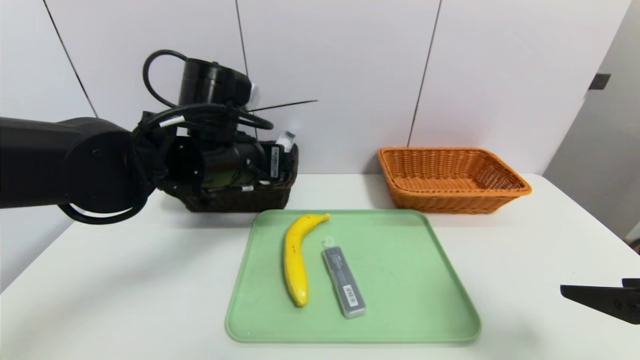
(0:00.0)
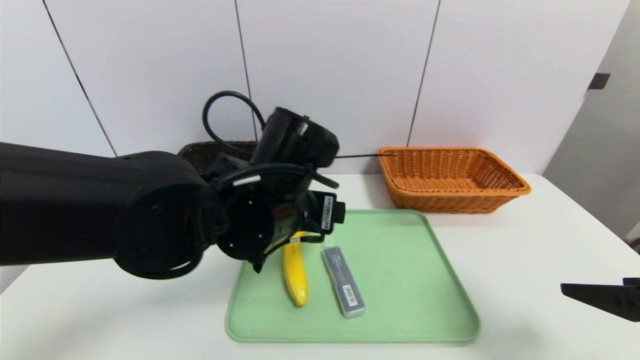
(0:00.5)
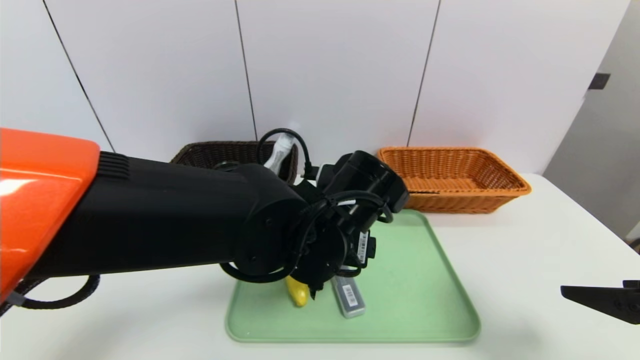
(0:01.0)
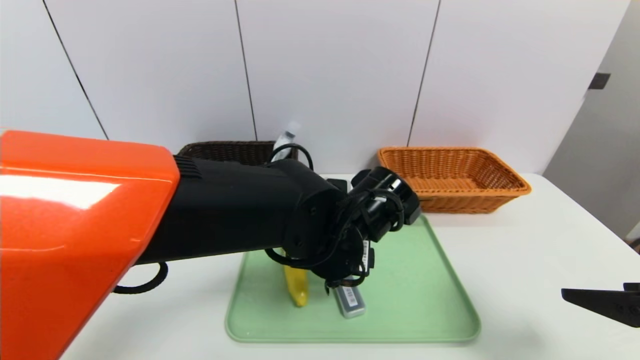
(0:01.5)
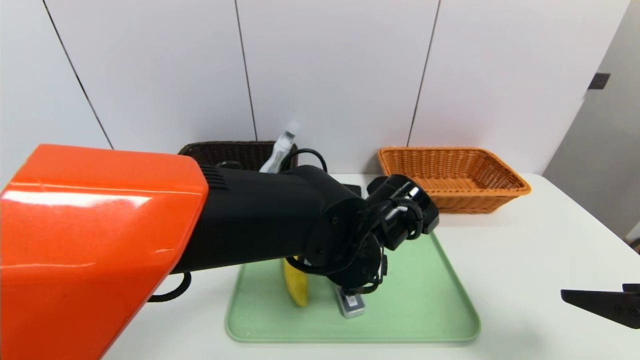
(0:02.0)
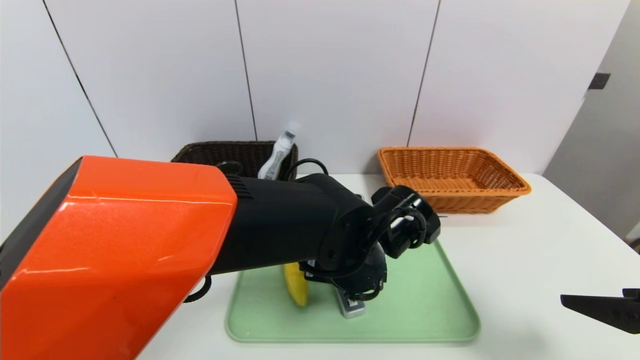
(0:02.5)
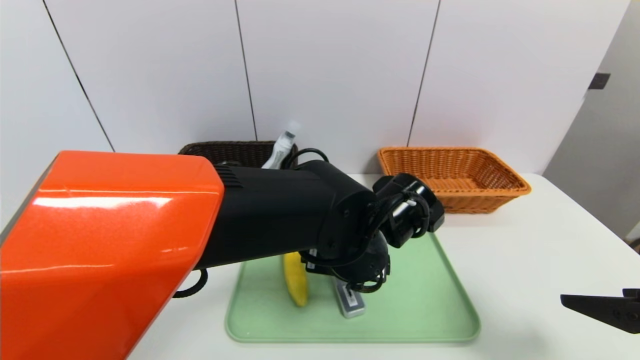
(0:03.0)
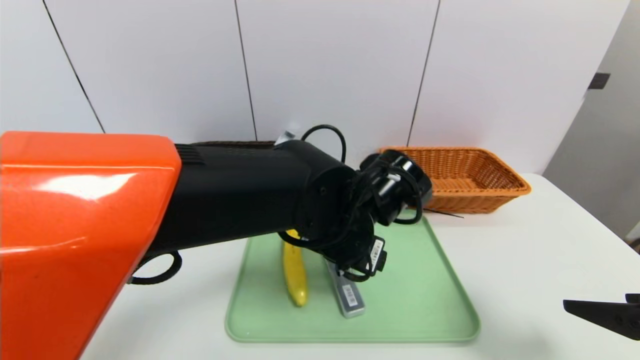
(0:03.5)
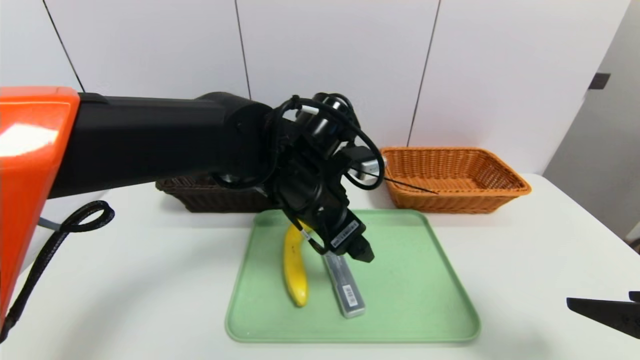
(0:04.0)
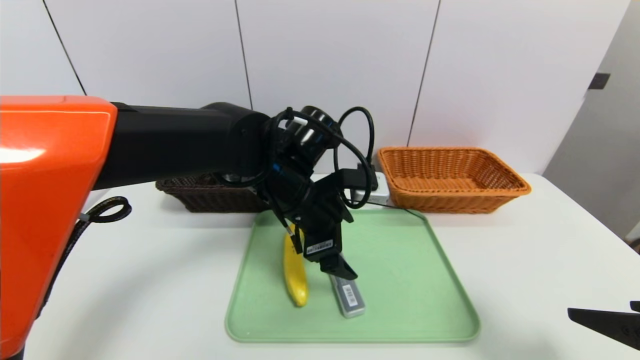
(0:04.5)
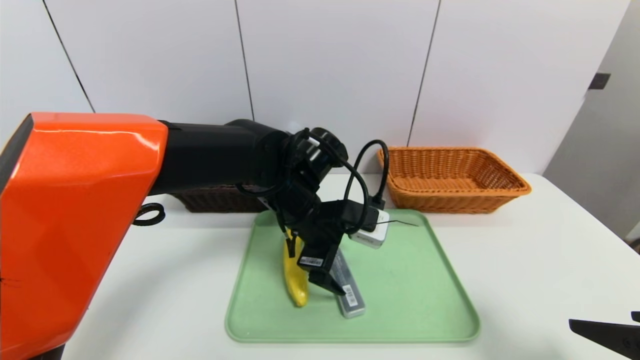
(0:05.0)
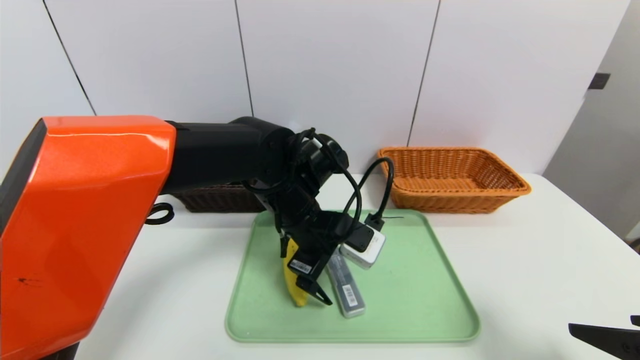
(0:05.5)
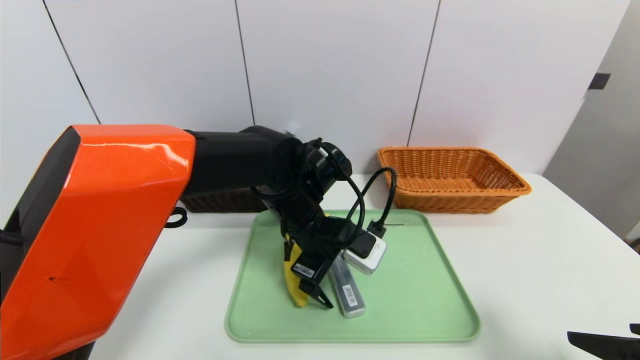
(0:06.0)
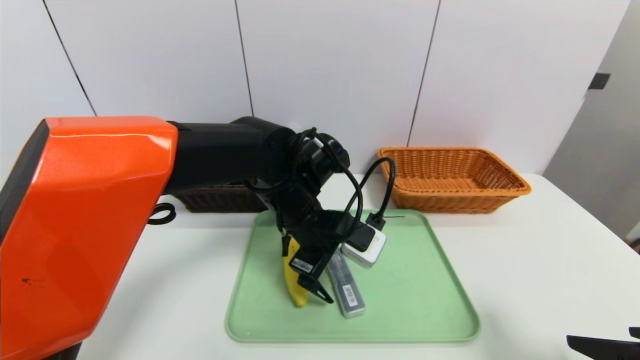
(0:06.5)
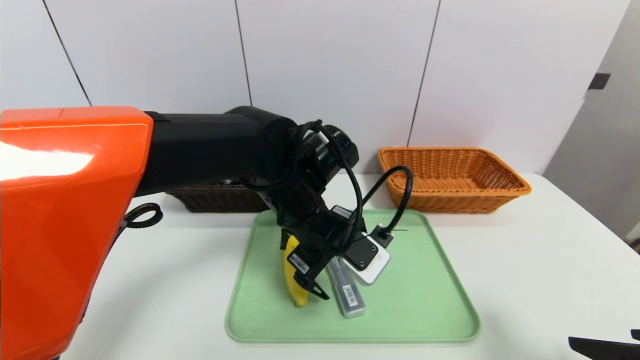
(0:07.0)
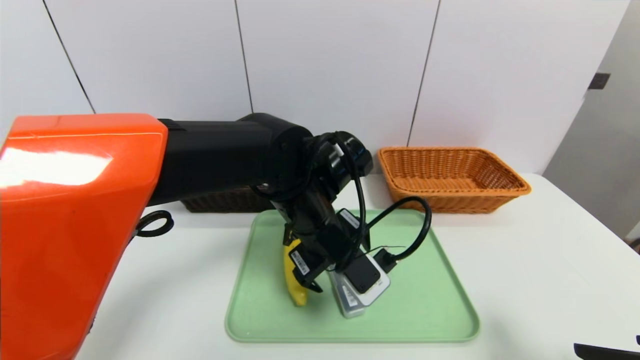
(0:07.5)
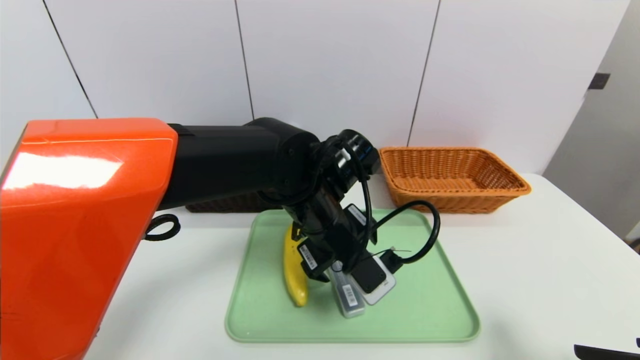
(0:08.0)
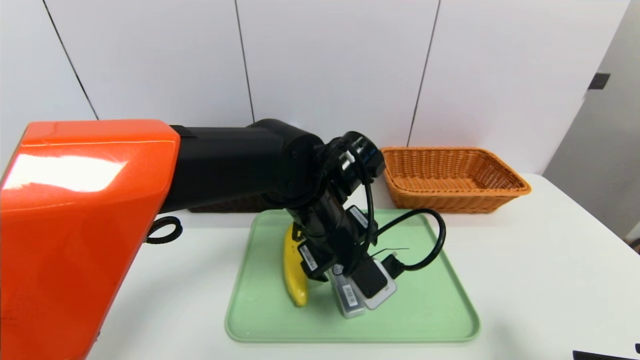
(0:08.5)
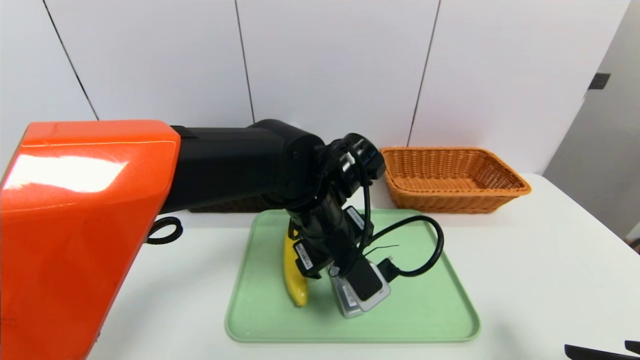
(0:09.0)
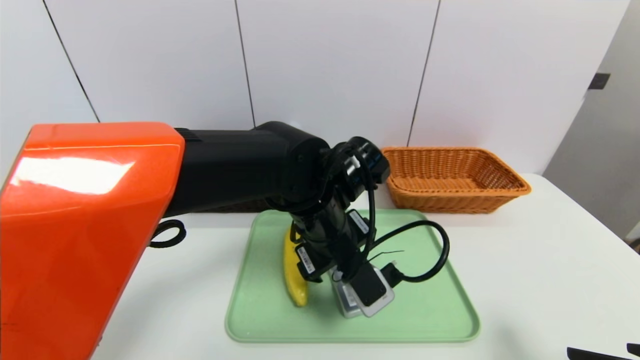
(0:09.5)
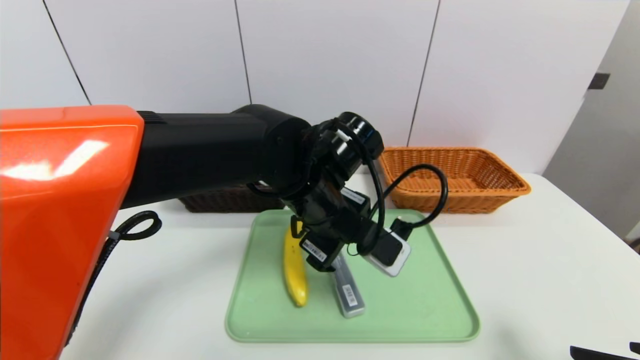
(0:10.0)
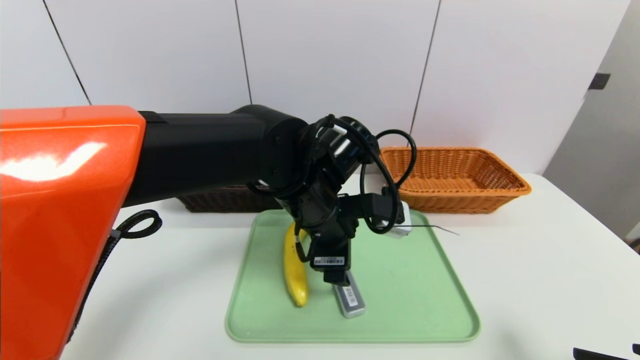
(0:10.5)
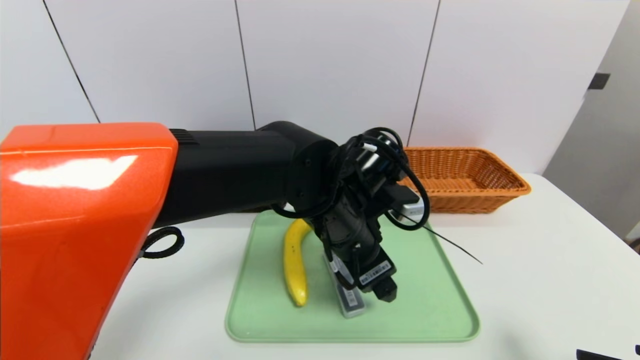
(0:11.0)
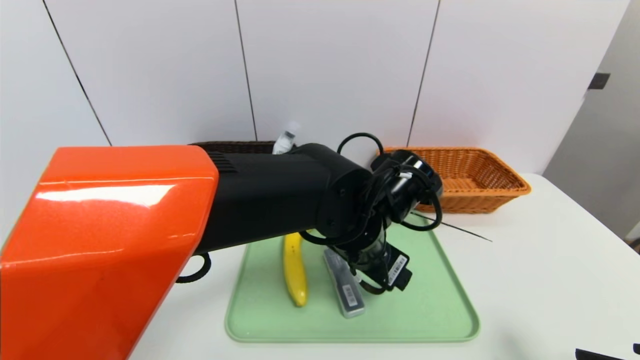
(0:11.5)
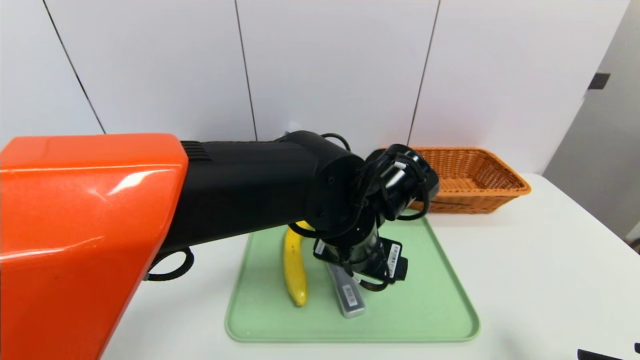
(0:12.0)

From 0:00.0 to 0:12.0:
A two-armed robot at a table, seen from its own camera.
Task of the whole recording: place the food in the right basket with the right gripper, and place the non food items in the left basket with the left gripper.
From 0:00.0 to 0:02.0: The left gripper is displaced to the right and downward by roughly 15 cm.
From 0:02.0 to 0:04.0: The left gripper shifts approximately 10 cm upward and to the left.
From 0:04.0 to 0:06.0: The left gripper travels downward by approximately 5 cm.
From 0:08.0 to 0:10.0: The grippers move only a little.
From 0:10.0 to 0:12.0: The left gripper shifts by some 5 cm.

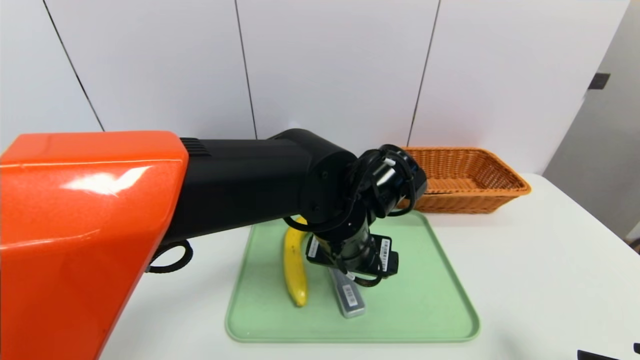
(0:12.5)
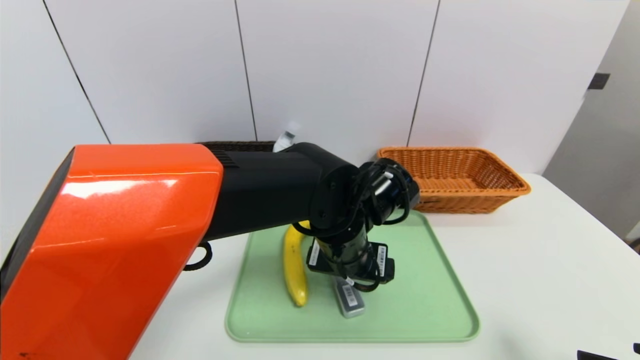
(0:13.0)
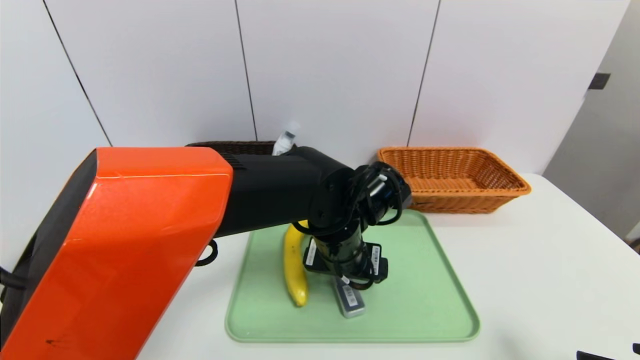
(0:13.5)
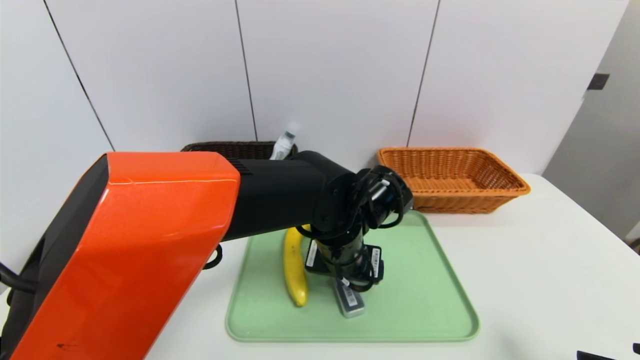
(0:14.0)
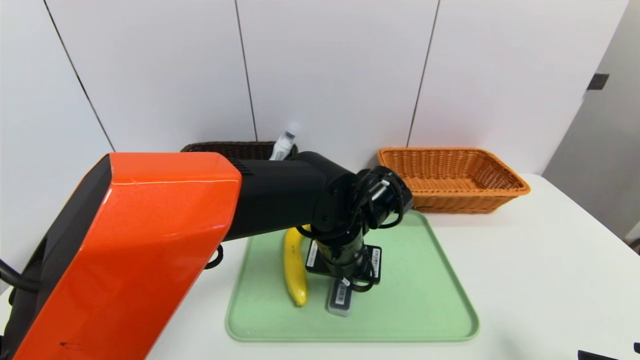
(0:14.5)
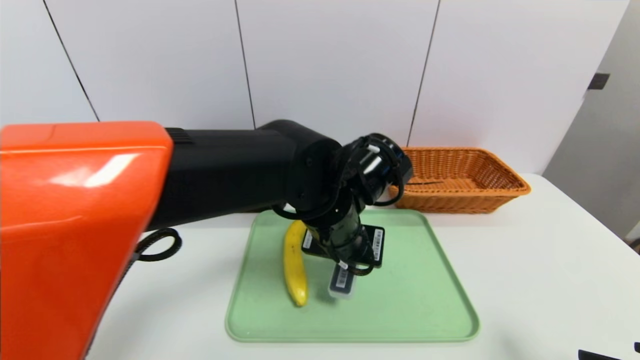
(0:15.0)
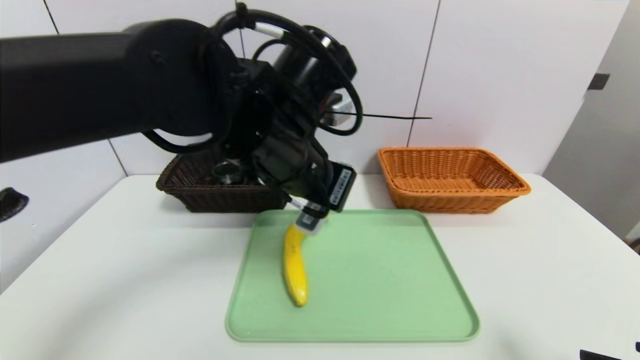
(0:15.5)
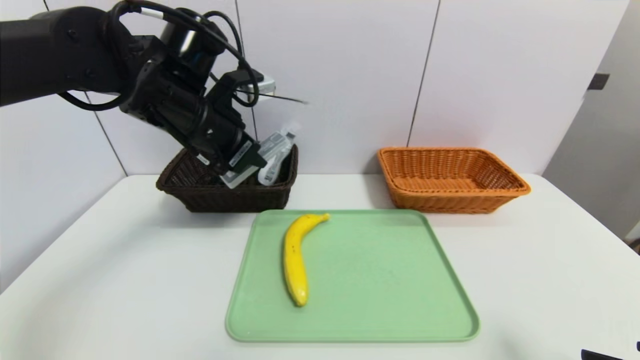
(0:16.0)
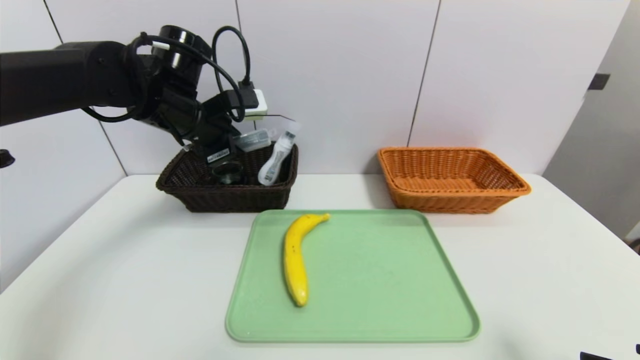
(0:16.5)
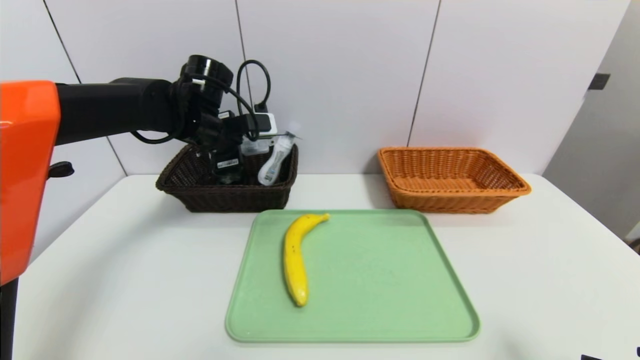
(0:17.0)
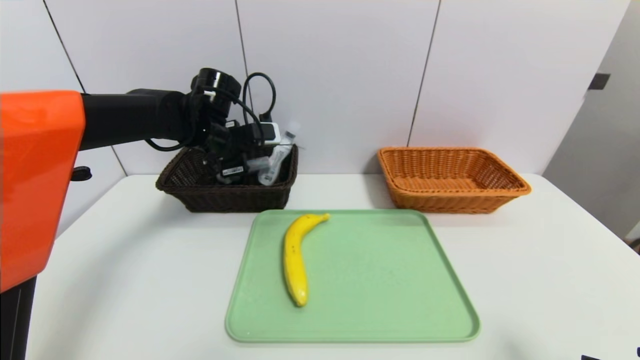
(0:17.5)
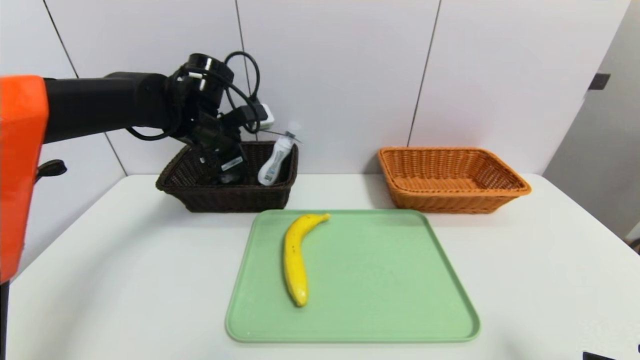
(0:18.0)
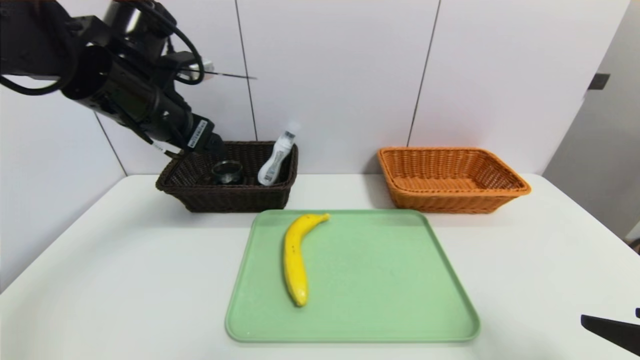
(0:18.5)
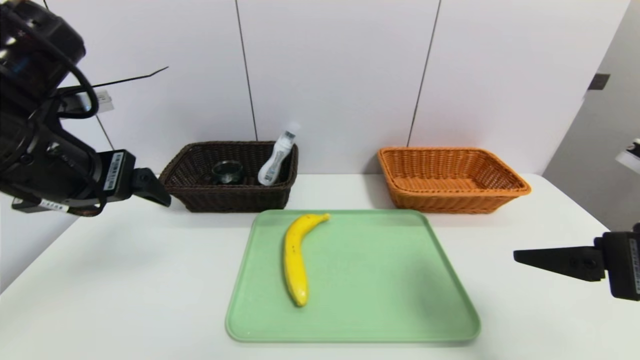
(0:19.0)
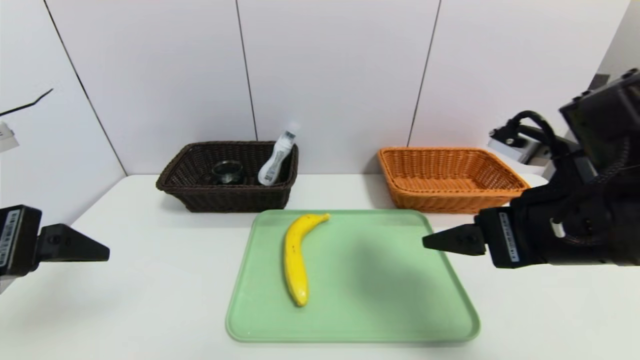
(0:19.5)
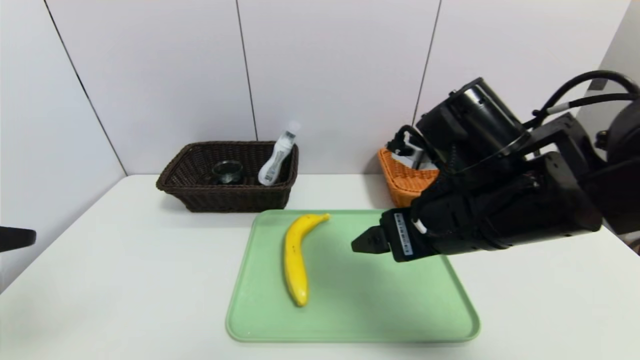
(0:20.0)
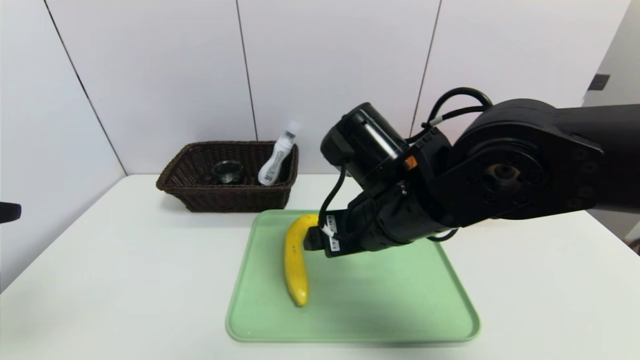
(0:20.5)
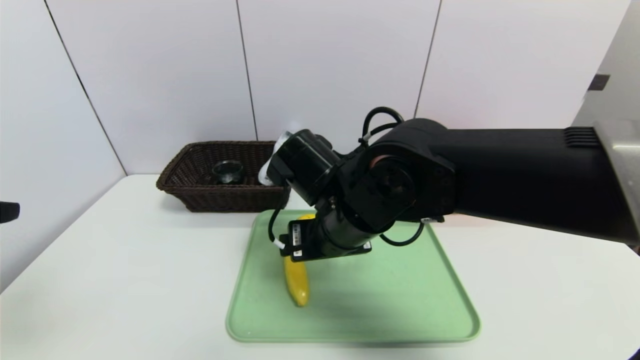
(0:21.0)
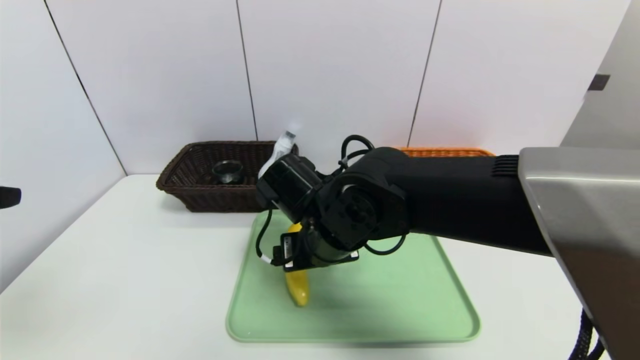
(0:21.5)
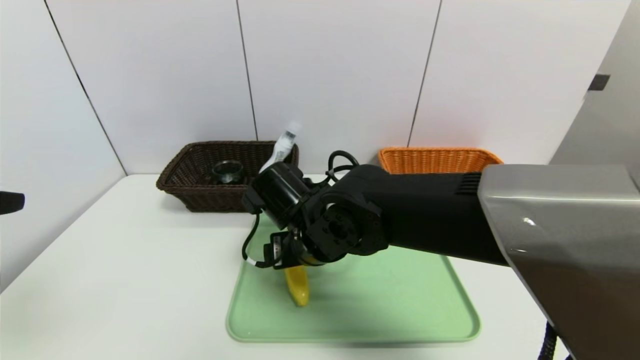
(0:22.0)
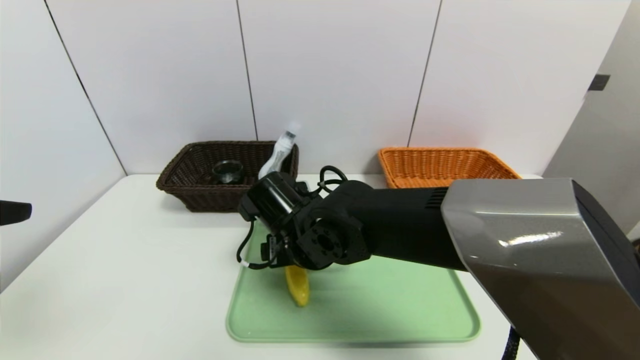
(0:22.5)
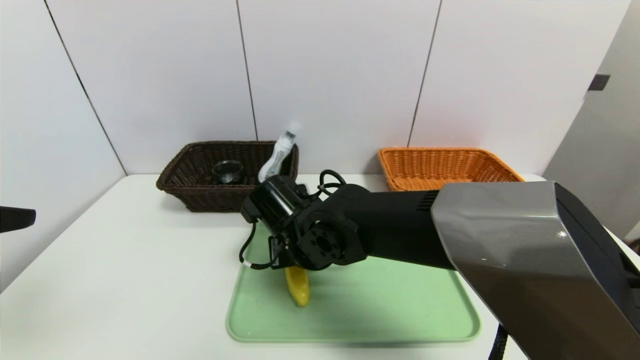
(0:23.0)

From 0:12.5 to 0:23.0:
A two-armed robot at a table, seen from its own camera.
Task of the whole recording: place the food in the right basket with the right gripper, and place the non food items in the left basket with the left gripper.
Step, from 0:12.5 to 0:17.5: Grasp the compass and put it in the left basket.
From 0:12.5 to 0:14.5: The left gripper closes its fingers.
From 0:14.5 to 0:16.5: The left gripper shifts roughly 30 cm to the left, upward and forward.
From 0:16.5 to 0:19.0: The right gripper travels forward and upward by roughly 10 cm. Meanwhile the left gripper is displaced backward by roughly 15 cm, and opens up.
From 0:19.0 to 0:21.0: The left gripper shifts approximately 15 cm backward. The right gripper moves to the left and forward, some 30 cm.
From 0:21.0 to 0:23.0: The right gripper goes approximately 5 cm downward, and closes.
